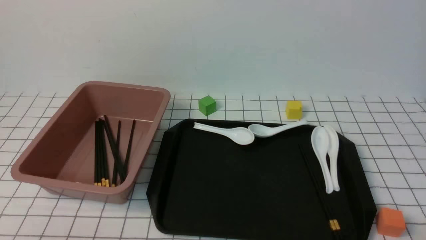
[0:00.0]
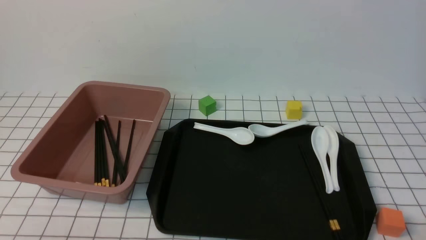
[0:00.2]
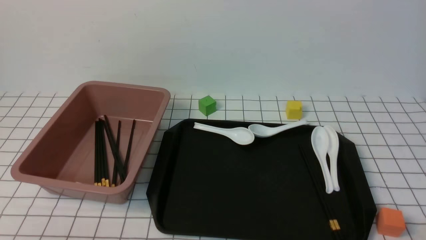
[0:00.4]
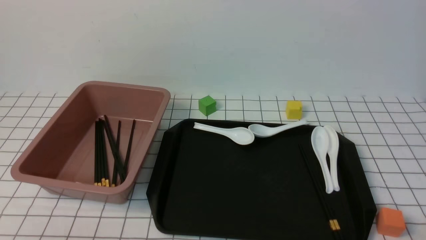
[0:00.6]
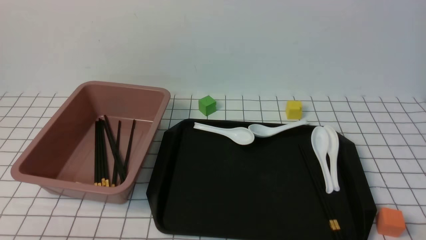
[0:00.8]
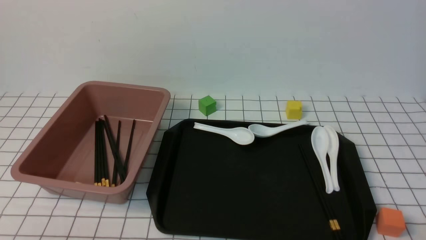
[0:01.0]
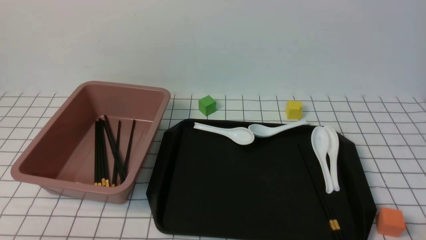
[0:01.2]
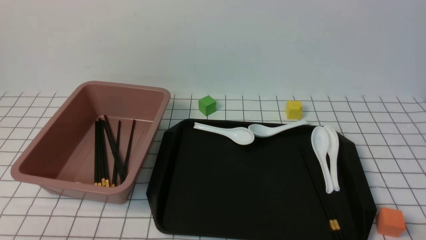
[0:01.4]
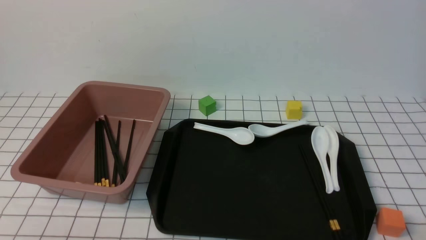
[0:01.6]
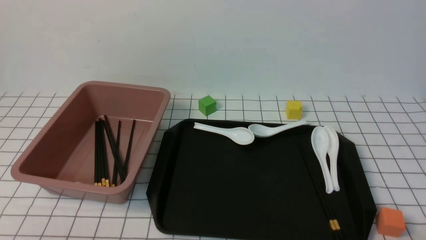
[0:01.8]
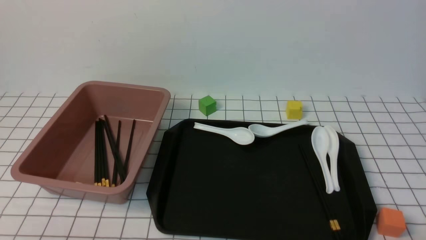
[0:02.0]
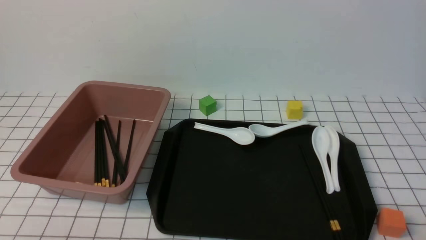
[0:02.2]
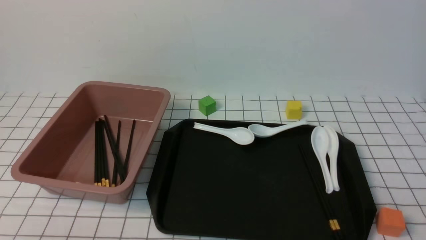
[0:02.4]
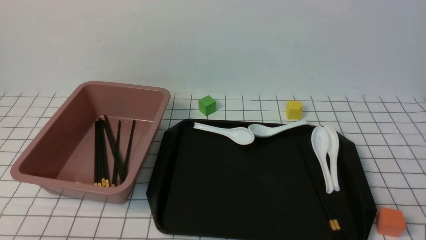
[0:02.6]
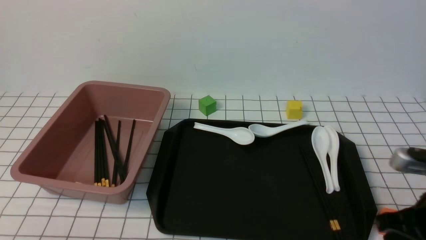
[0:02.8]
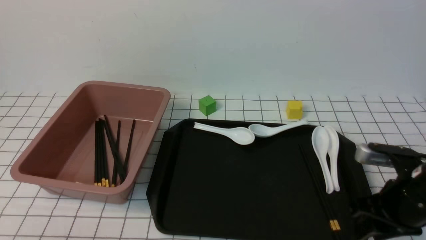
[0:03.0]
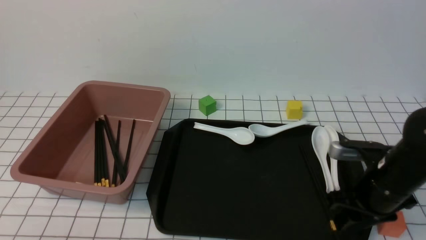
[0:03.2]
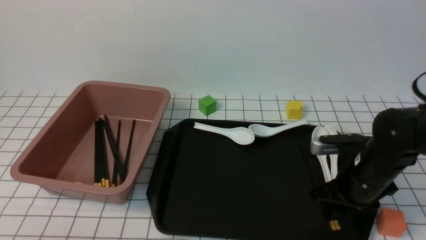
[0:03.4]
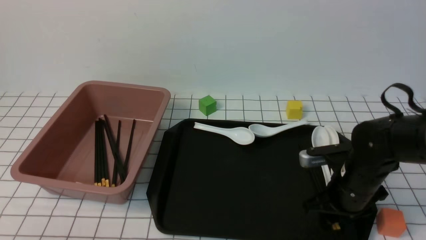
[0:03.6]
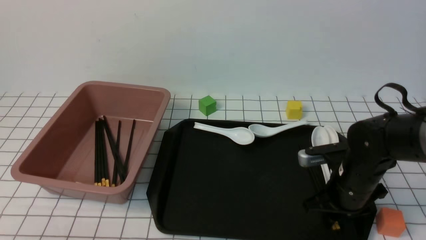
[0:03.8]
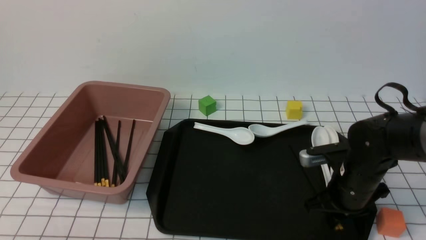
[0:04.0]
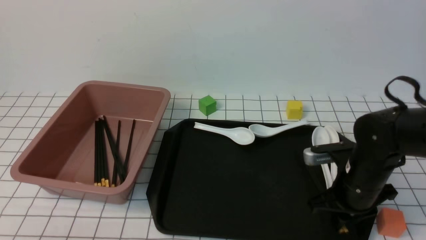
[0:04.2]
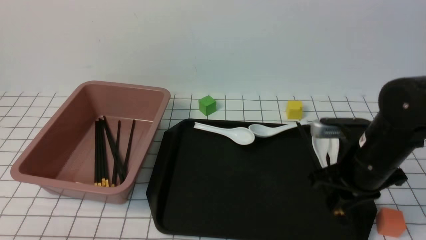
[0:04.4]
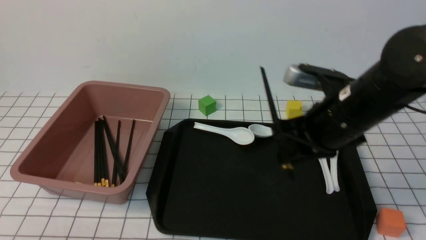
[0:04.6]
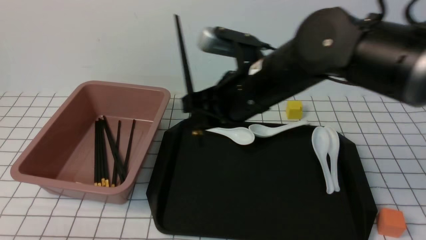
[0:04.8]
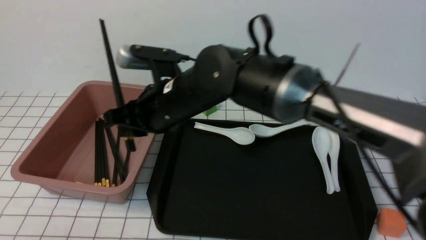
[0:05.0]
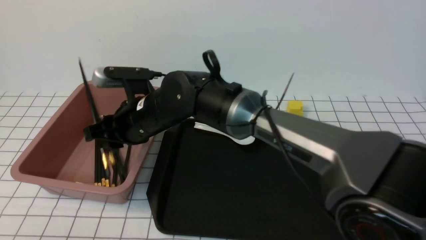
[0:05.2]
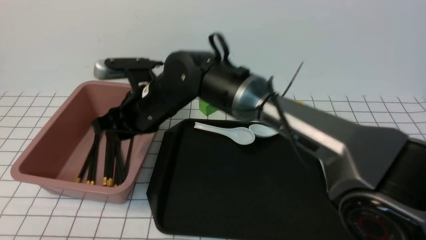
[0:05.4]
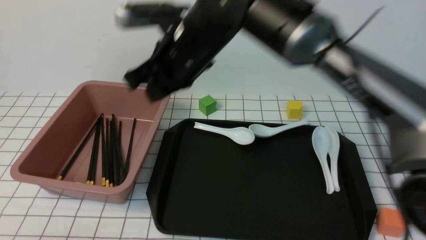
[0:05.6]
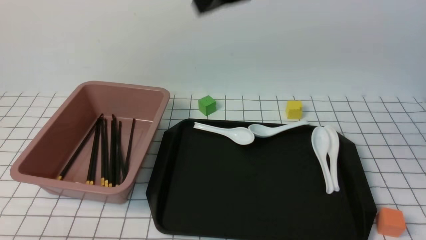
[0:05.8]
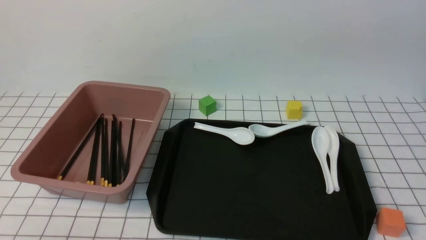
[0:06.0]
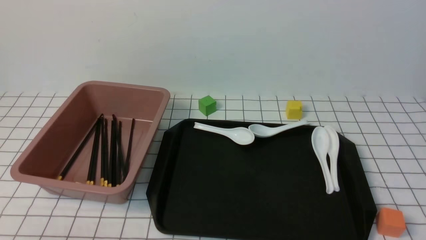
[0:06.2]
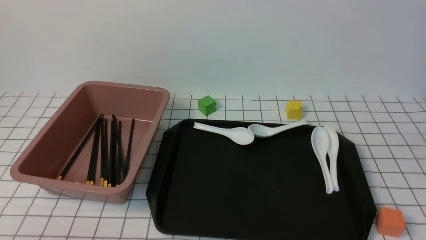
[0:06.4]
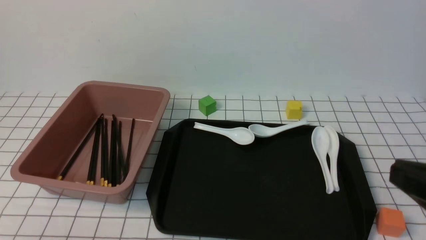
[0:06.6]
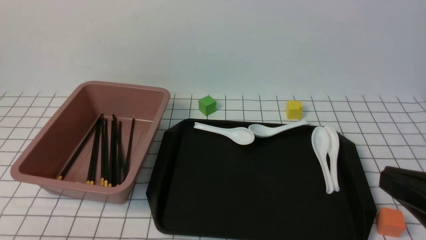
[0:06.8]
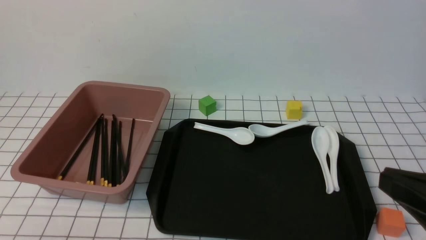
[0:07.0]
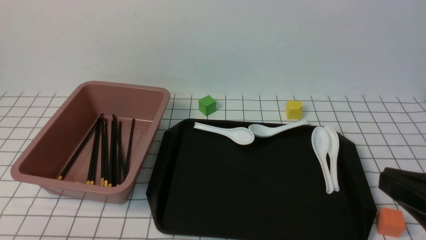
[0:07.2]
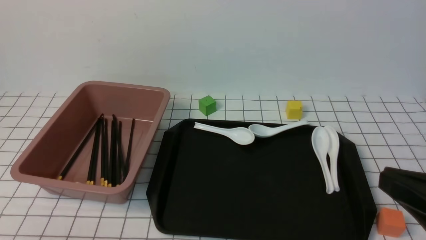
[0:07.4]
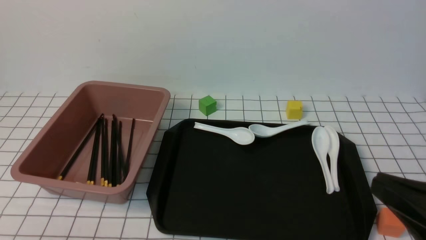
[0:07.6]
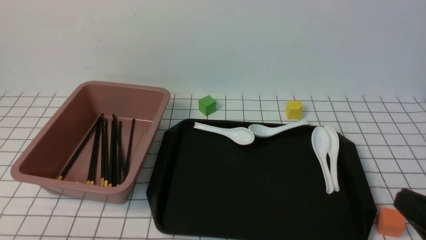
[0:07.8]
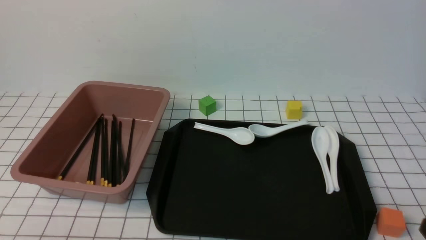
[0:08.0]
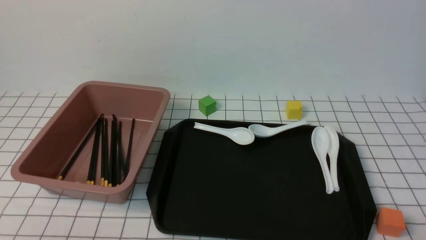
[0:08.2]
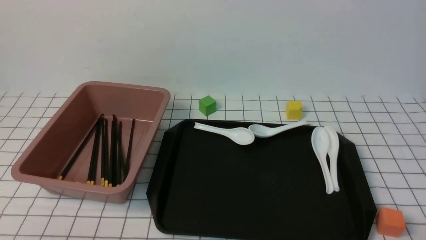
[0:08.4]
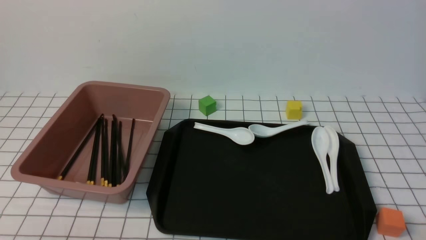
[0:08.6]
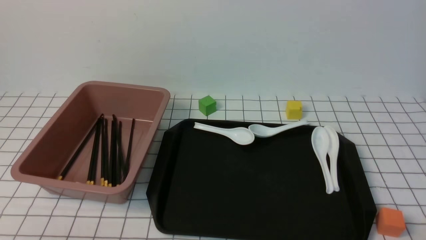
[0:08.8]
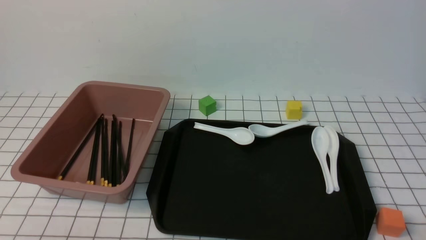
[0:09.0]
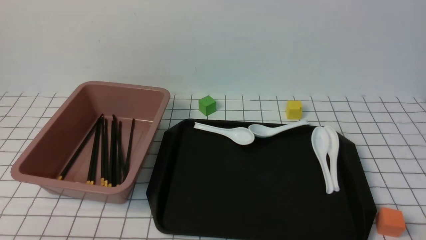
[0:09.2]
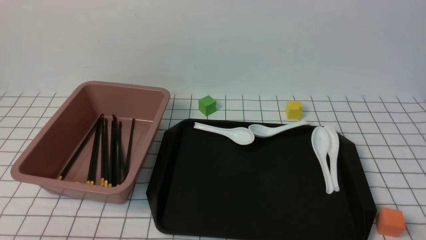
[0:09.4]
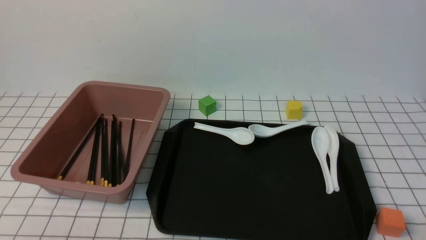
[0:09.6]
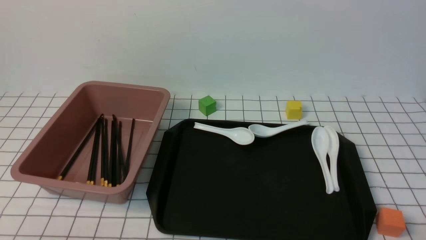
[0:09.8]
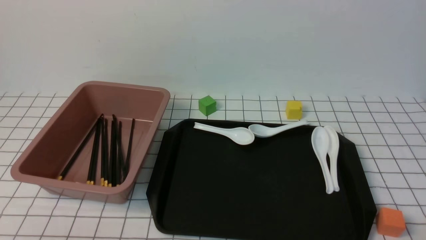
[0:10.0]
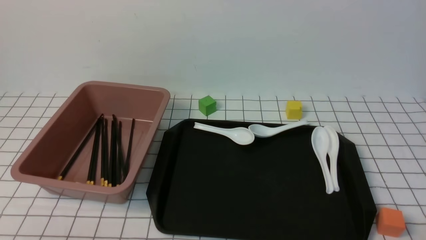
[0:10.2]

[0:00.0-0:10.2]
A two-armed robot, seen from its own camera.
Step, 0:00.0 to 0:04.4: use the right arm to grab a pair of chopsticks.
Step, 0:04.6 to 0:05.6: use the right arm to put the chopsticks into the lunch box.
0:00.0 to 0:01.4: The two grippers keep their place.
0:01.4 to 0:03.0: The right gripper moves forward, some 20 cm, and closes, then reopens.
0:03.0 to 0:04.4: The right gripper travels to the left and forward by approximately 10 cm, and moves roughly 5 cm downward and comes back.
0:04.4 to 0:05.8: The right gripper heads upward and to the left, covering roughly 30 cm, and closes.
0:05.8 to 0:07.2: The right gripper is displaced backward, downward and to the right by roughly 30 cm.
0:07.2 to 0:08.8: The right gripper moves downward and to the right, roughly 15 cm.
0:08.8 to 0:10.2: The two grippers keep their place.

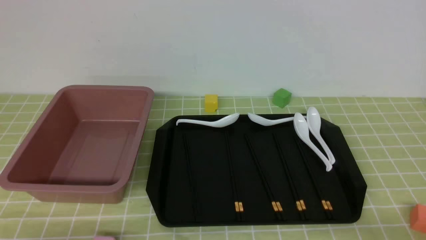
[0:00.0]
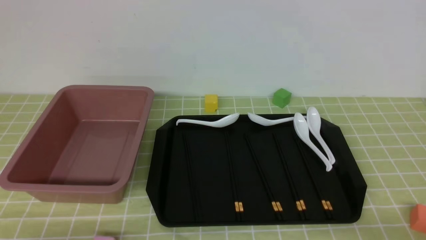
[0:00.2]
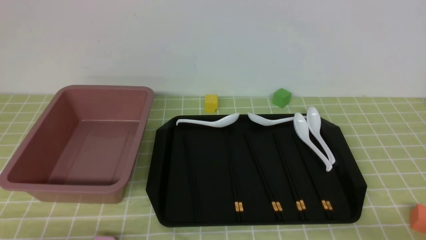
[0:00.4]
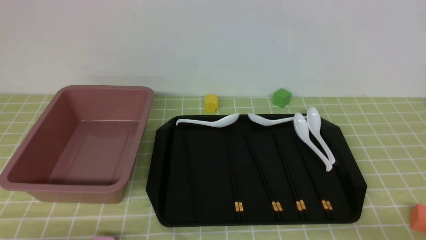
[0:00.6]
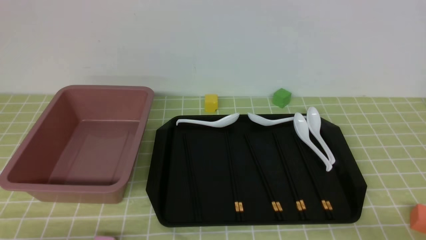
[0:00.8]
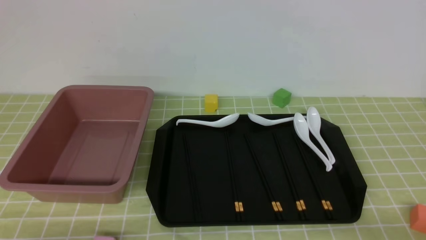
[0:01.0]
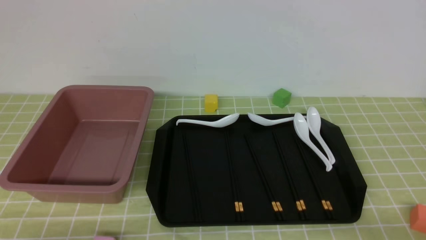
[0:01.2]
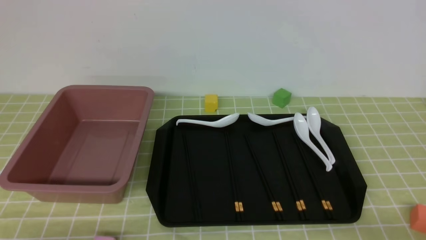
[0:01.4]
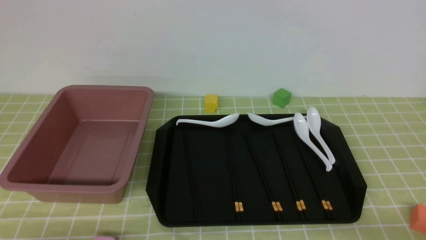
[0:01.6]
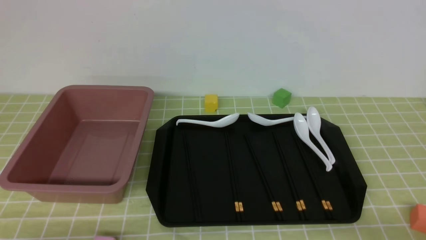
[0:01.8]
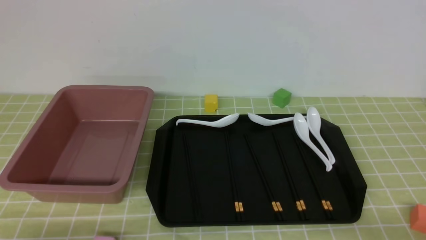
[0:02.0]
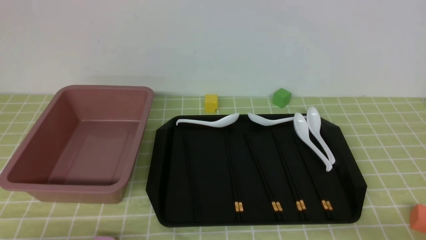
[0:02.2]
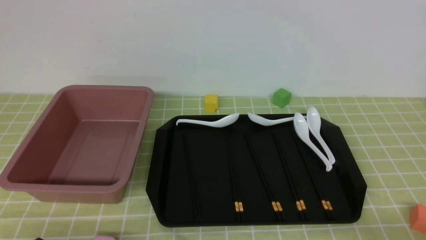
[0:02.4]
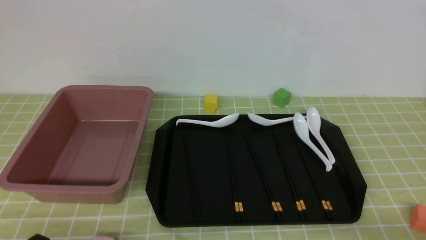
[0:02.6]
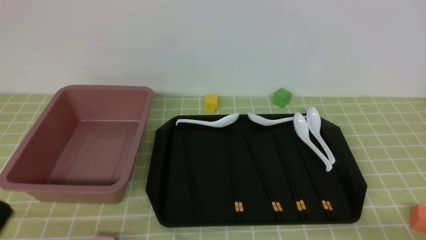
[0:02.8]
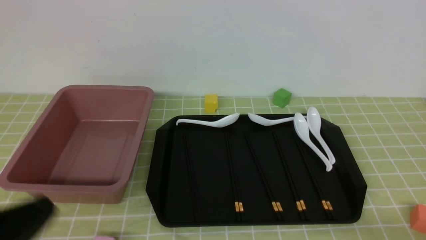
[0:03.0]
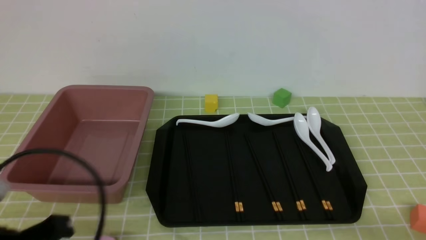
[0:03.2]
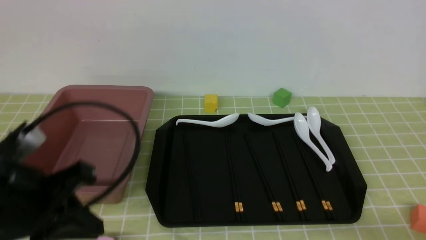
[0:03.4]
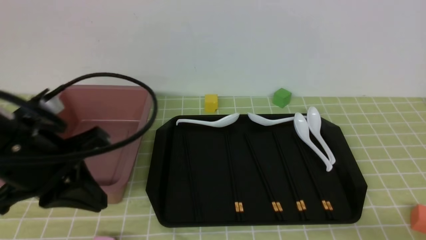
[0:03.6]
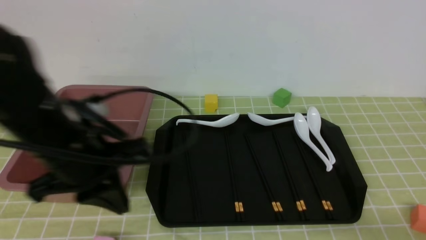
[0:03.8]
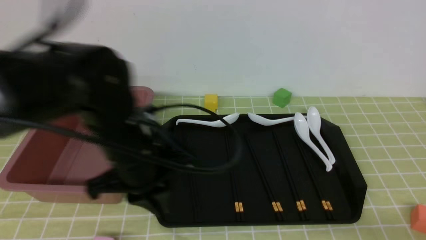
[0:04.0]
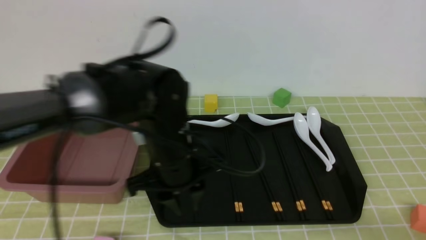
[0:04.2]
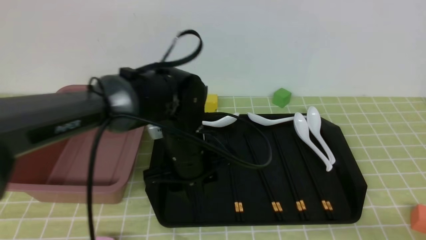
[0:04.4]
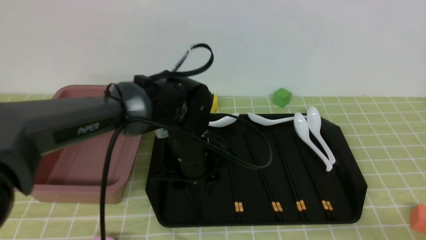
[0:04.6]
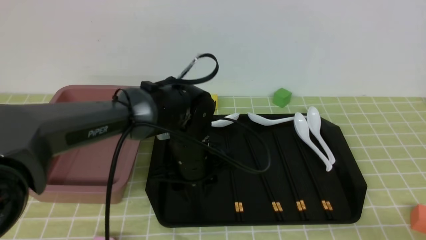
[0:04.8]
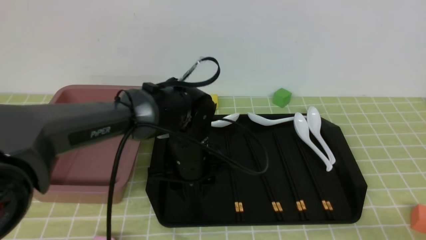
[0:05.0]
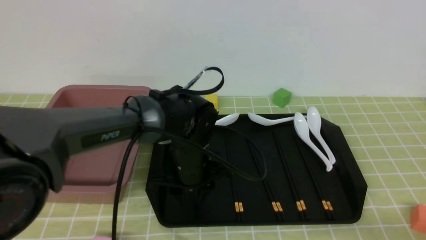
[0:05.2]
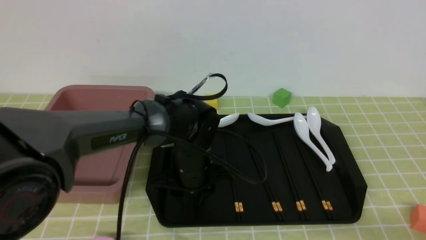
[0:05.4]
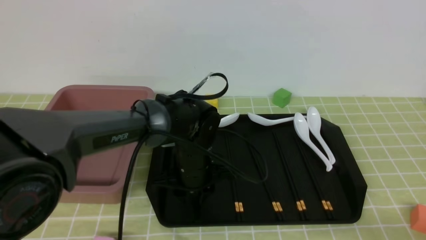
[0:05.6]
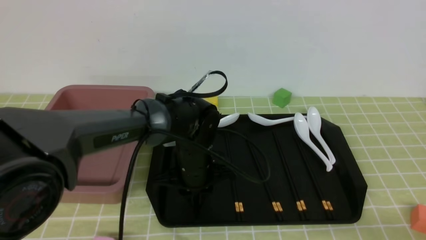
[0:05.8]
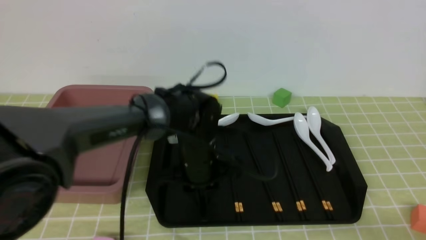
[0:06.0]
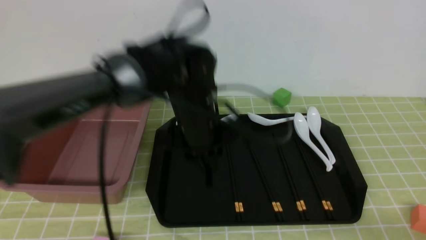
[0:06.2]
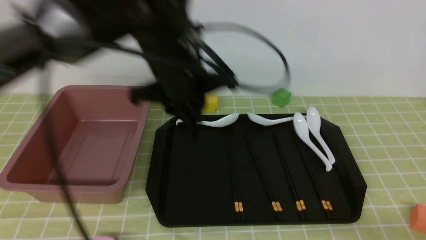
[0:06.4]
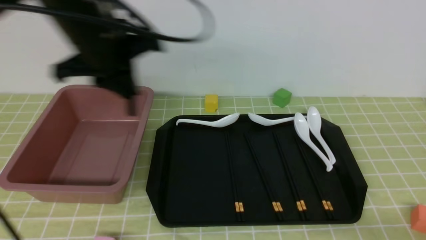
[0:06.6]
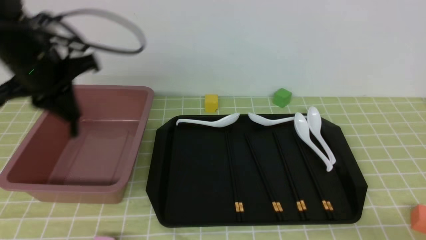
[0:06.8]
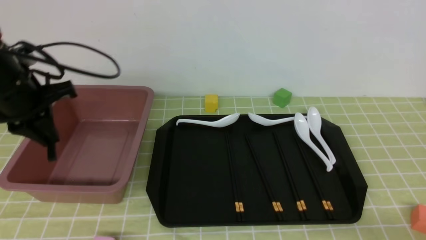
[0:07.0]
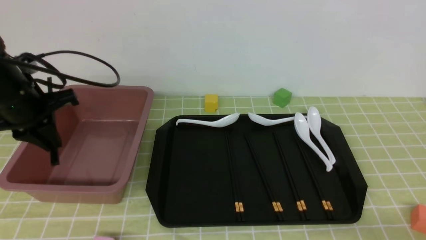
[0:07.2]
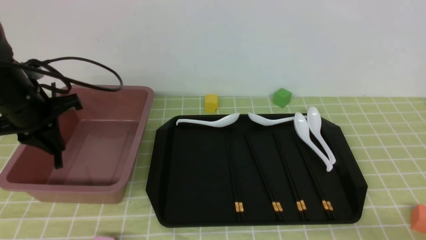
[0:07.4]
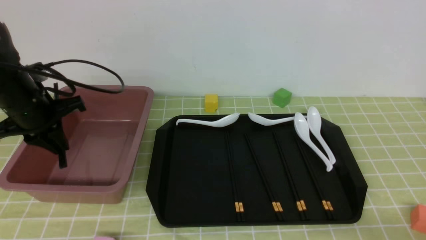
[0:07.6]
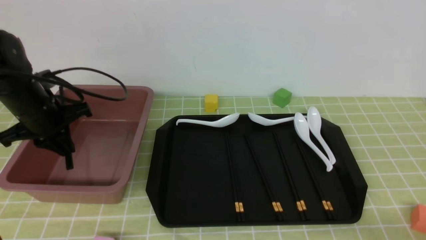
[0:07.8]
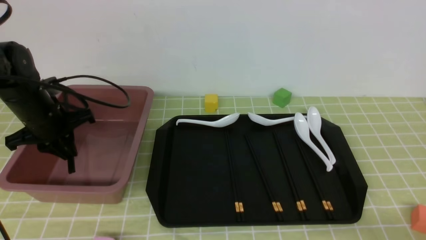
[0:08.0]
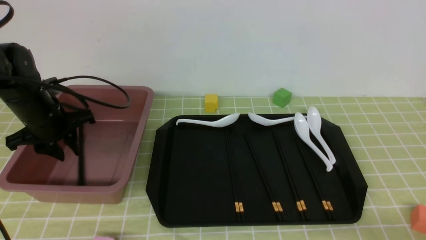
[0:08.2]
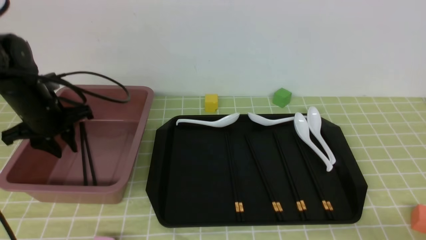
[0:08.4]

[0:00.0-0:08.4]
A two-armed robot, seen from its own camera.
Step, 0:00.0 to 0:06.2: use the left arm to grab a pair of chopsticks.
0:00.0 to 0:01.4: The two grippers keep their place.
0:02.8 to 0:04.2: The left gripper goes roughly 30 cm forward and to the right, and opens its fingers.
0:04.2 to 0:05.6: The left gripper heads downward and forward, covering some 10 cm.
0:05.6 to 0:07.0: The left gripper moves to the left and upward, about 30 cm, and closes up.
0:07.0 to 0:08.4: The left gripper moves downward, about 5 cm.
